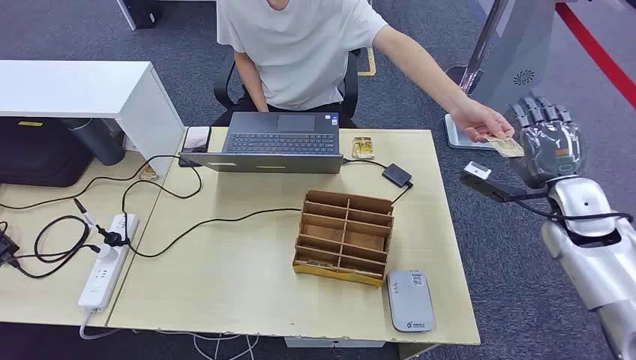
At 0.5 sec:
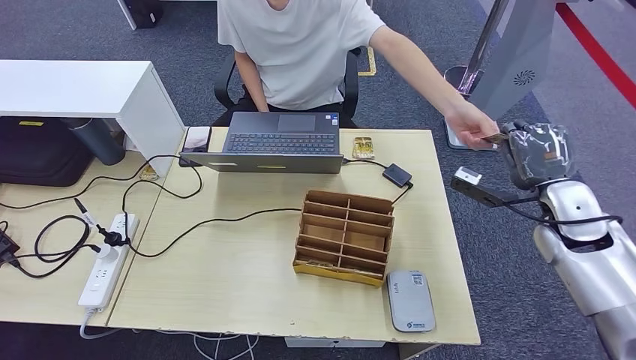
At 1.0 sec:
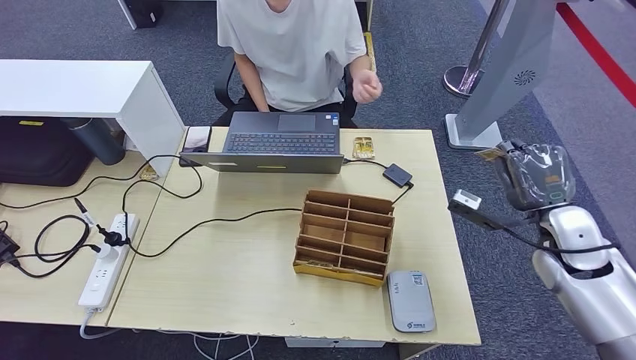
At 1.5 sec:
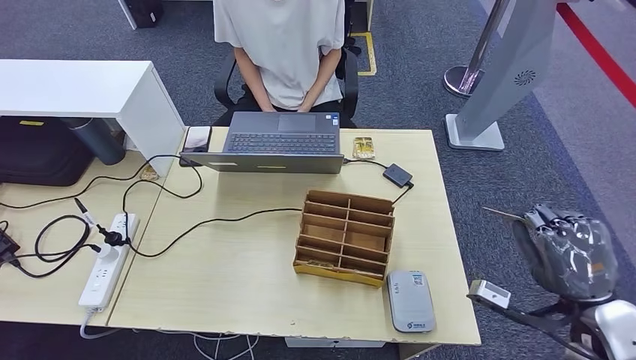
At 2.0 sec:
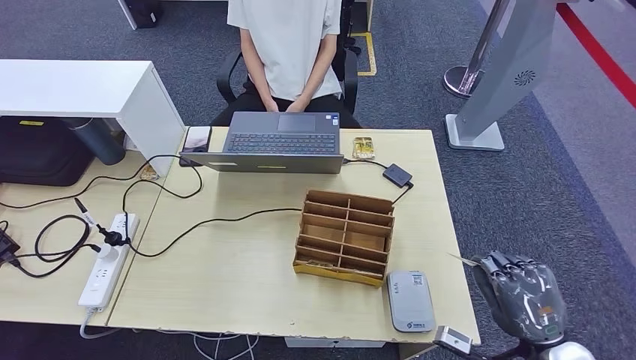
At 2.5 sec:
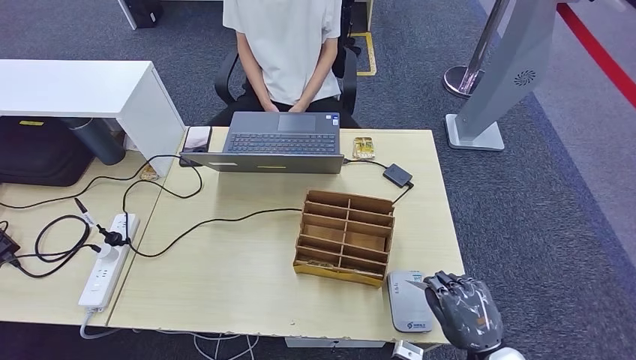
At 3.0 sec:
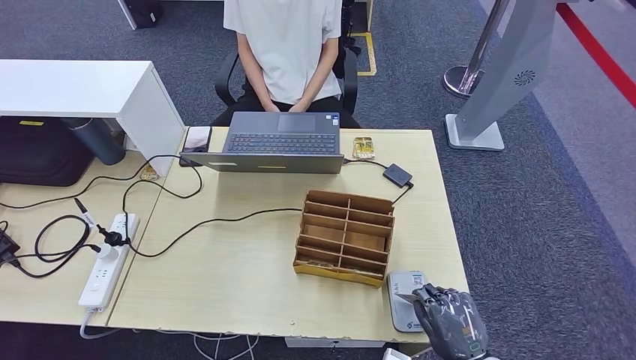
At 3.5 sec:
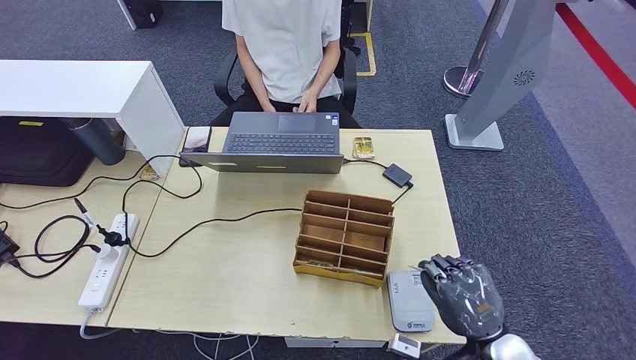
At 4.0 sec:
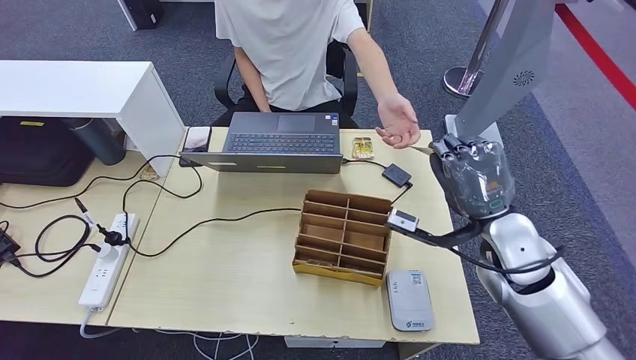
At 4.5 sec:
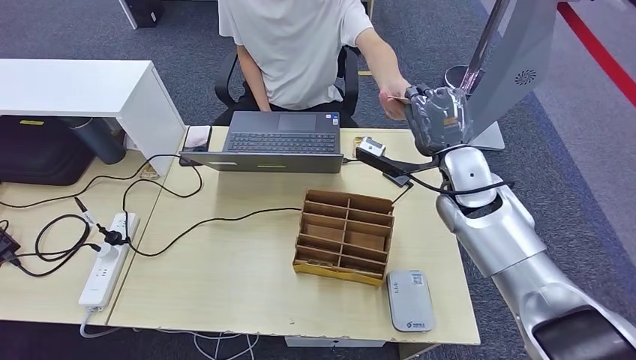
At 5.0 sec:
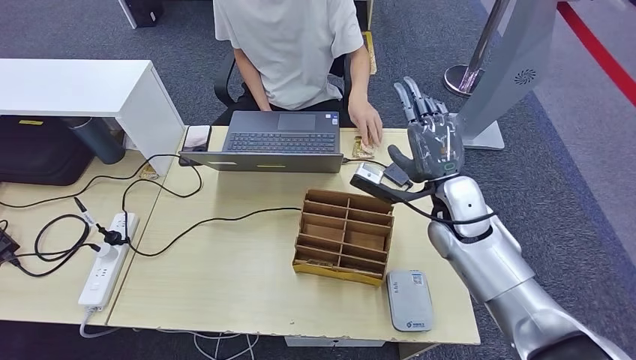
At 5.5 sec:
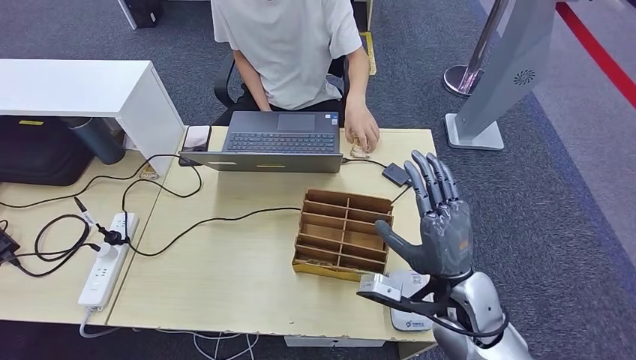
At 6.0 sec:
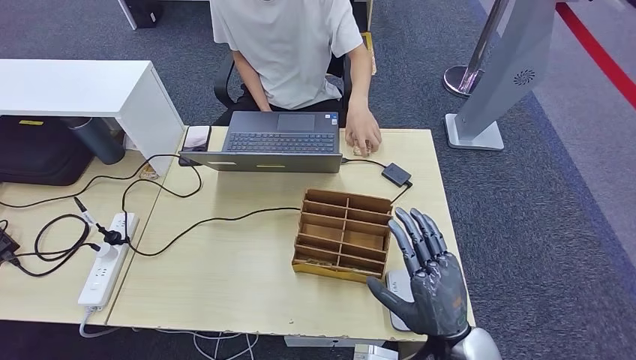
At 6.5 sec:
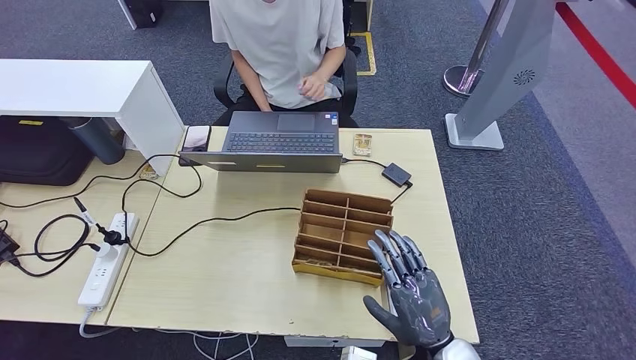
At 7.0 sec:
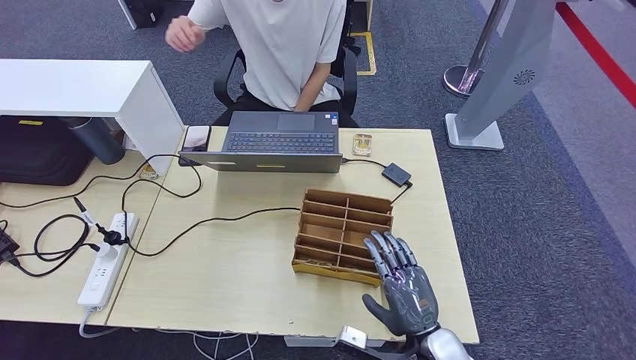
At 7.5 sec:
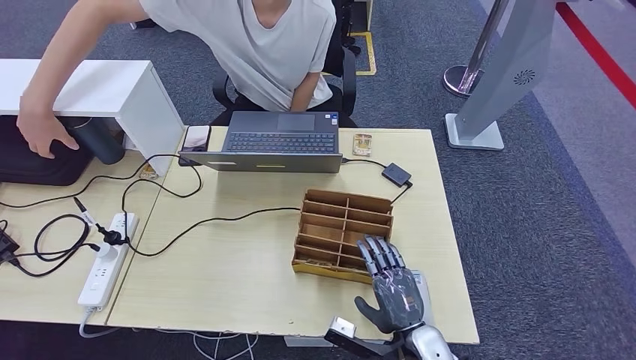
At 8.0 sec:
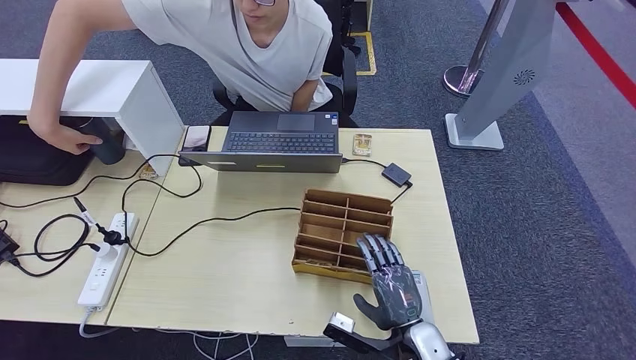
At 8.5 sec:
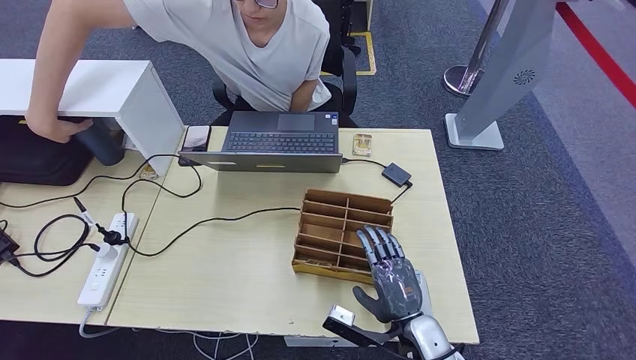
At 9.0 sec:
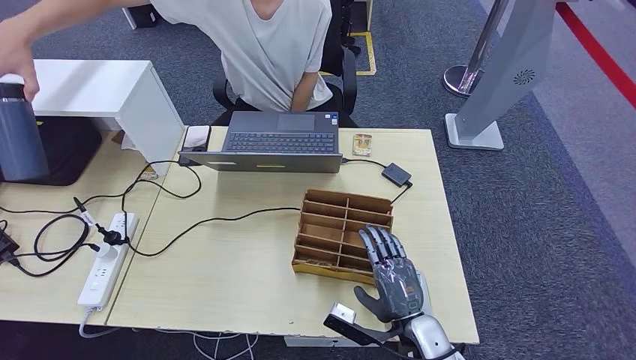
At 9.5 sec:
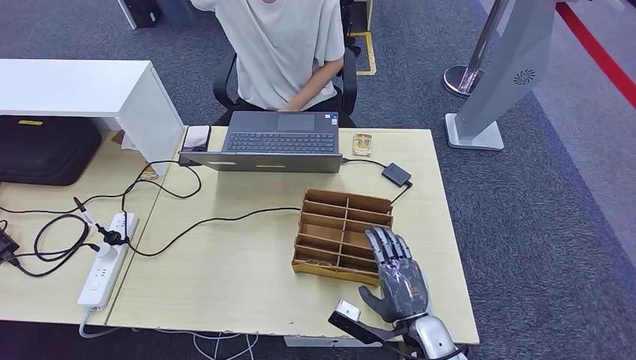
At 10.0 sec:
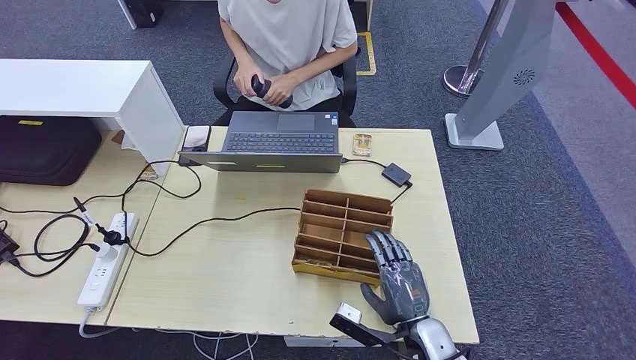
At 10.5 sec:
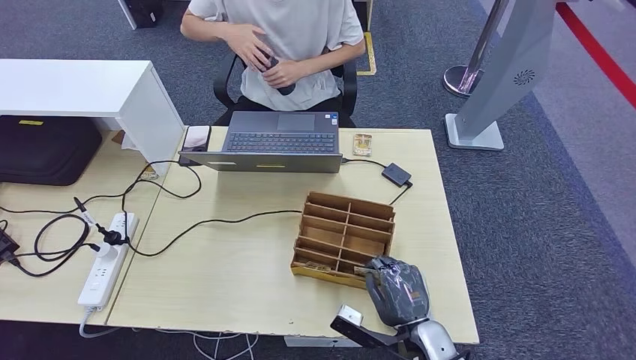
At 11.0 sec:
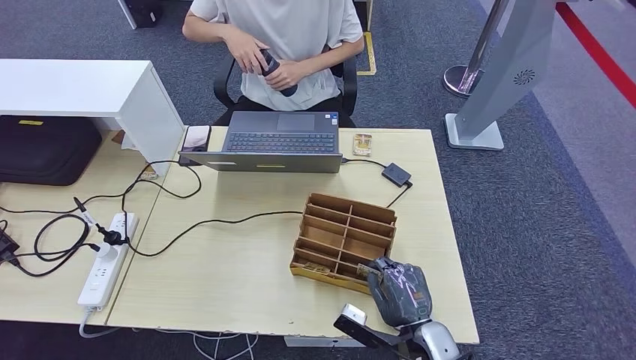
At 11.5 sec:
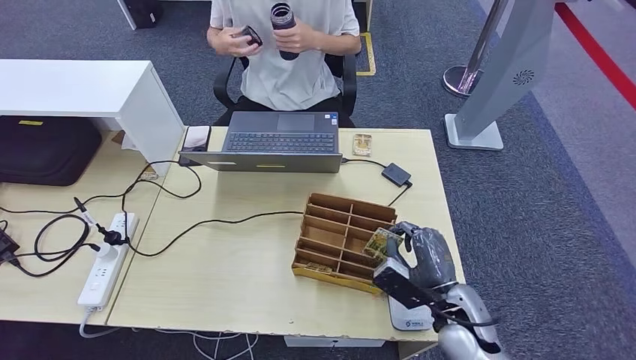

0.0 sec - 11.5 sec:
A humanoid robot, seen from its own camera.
Step, 0.0 sec - 1.0 sec: Take the ID card from the person's hand.
Step, 1.5 sec - 3.5 sec: Place the ID card on the card reader.
Step, 4.0 sec - 8.5 sec: Hand the ID card to the person.
2.0 sec - 4.0 sec: The right hand is displaced forward, upward and to the left by about 20 cm.
4.0 sec - 6.0 sec: The right hand shifts approximately 20 cm backward, downward and to the left.
6.0 sec - 7.5 sec: The right hand is displaced downward by some 10 cm.
7.5 sec - 9.5 sec: The hands stay close to where they were, moving slightly.
9.5 sec - 11.5 sec: The right hand heads to the right, covering approximately 5 cm.

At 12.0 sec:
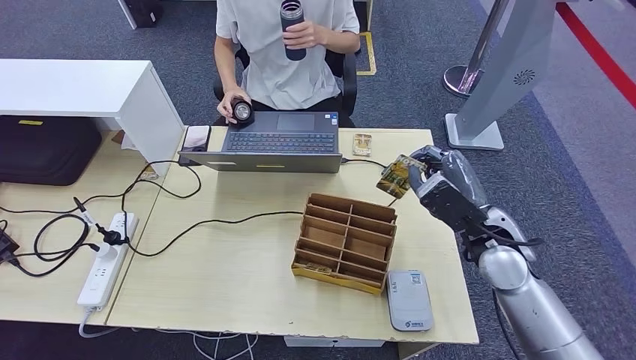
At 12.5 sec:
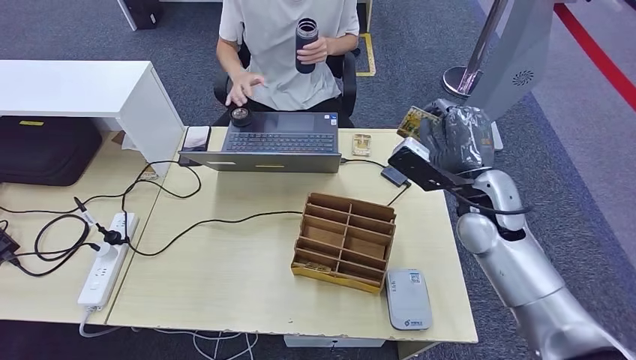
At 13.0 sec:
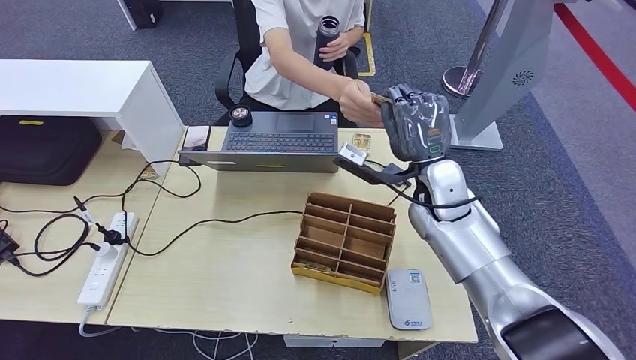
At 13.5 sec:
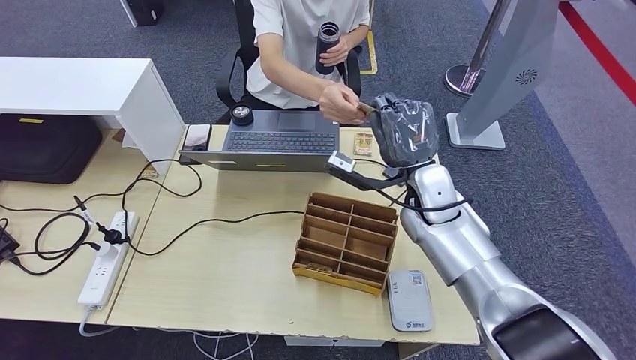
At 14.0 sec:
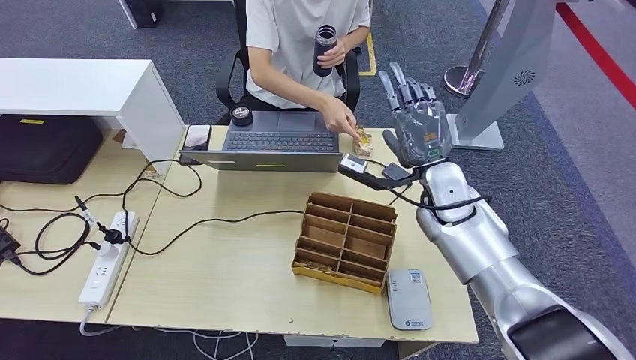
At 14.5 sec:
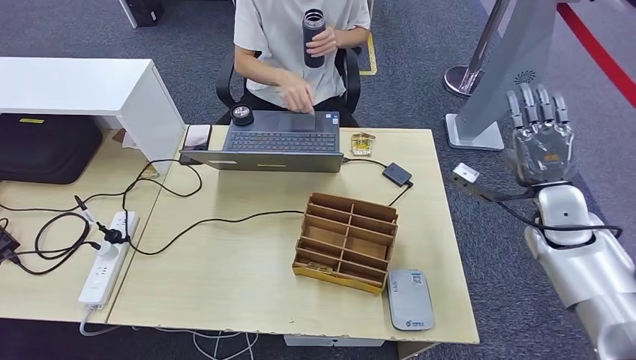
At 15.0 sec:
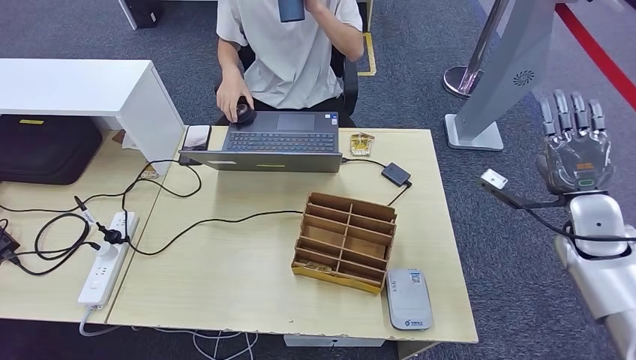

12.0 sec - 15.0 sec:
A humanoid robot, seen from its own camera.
Step, 12.0 sec - 15.0 sec: Hand the room key to the person.
12.0 sec - 13.5 sec: The right hand heads to the left and forward, covering some 15 cm.
